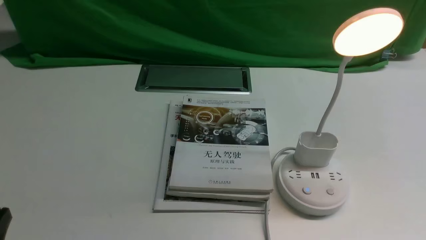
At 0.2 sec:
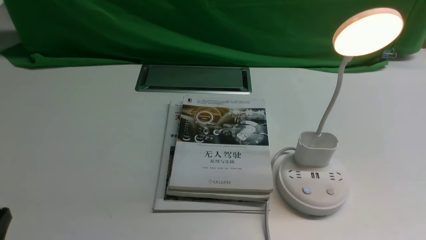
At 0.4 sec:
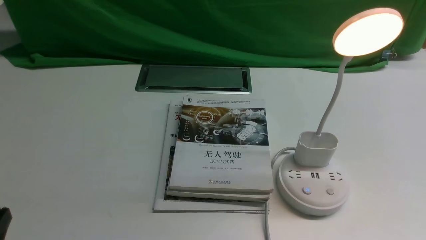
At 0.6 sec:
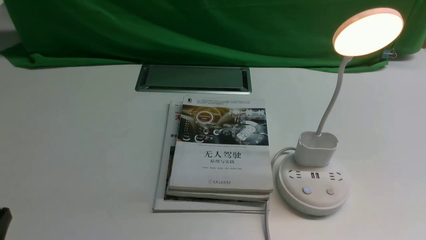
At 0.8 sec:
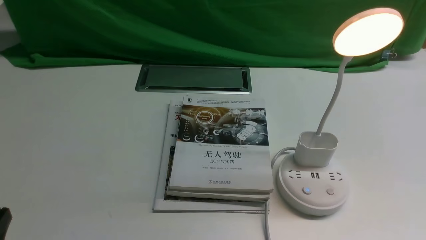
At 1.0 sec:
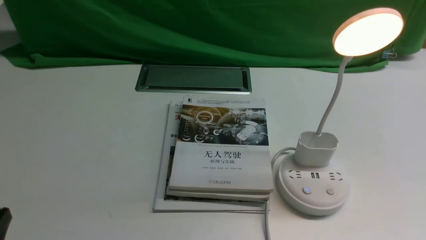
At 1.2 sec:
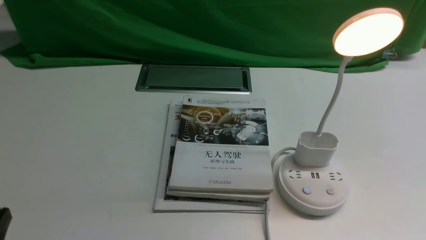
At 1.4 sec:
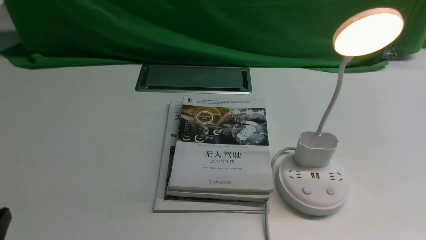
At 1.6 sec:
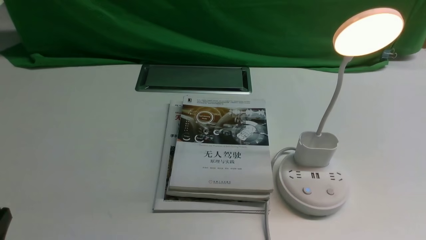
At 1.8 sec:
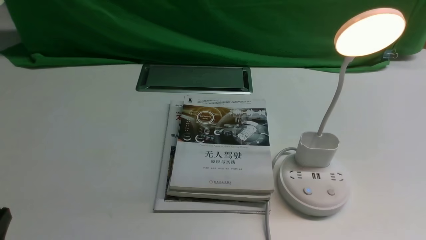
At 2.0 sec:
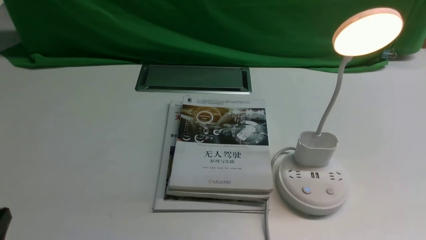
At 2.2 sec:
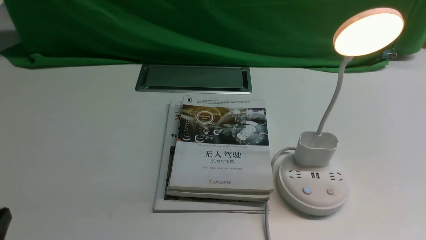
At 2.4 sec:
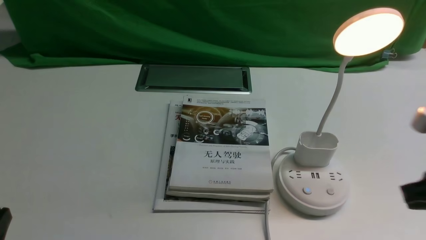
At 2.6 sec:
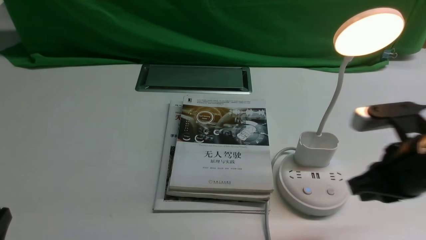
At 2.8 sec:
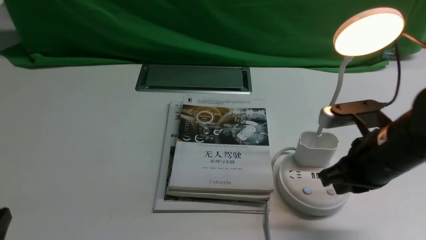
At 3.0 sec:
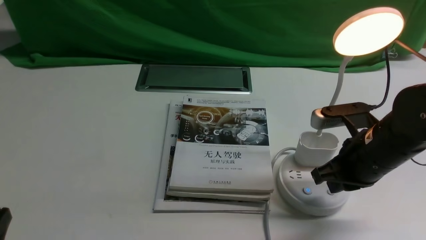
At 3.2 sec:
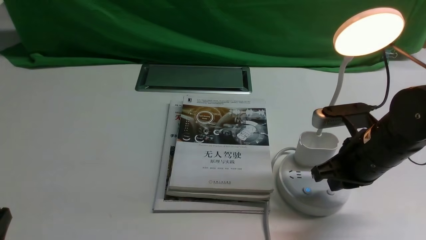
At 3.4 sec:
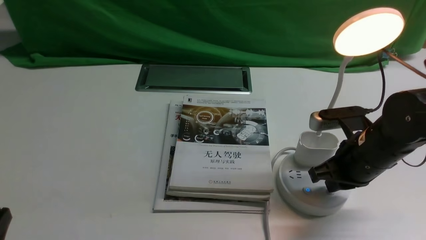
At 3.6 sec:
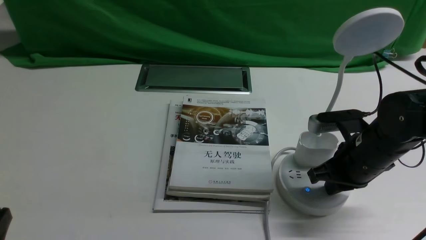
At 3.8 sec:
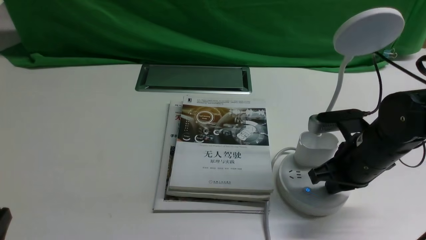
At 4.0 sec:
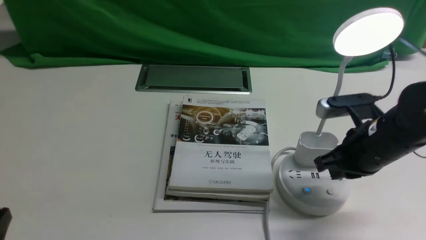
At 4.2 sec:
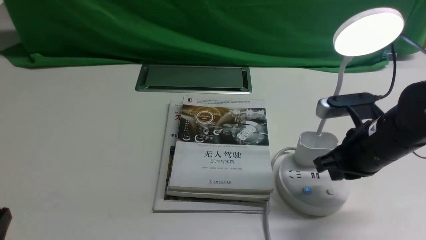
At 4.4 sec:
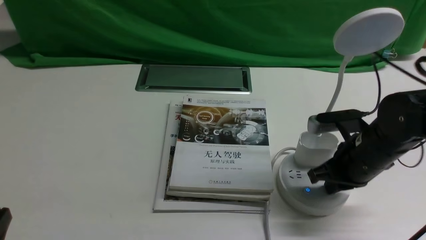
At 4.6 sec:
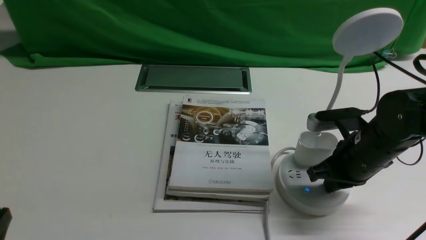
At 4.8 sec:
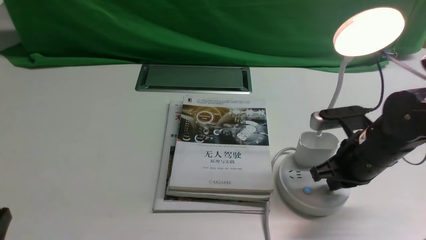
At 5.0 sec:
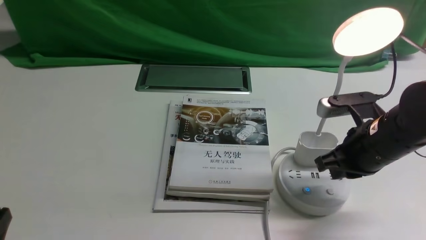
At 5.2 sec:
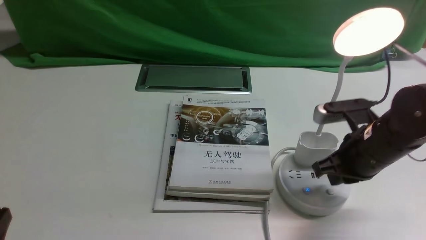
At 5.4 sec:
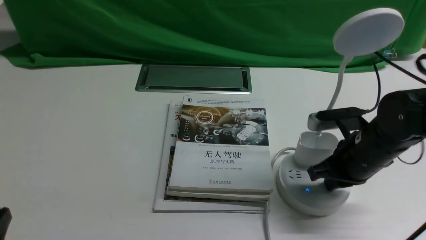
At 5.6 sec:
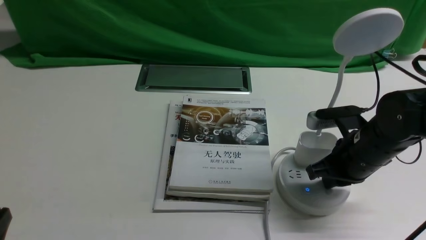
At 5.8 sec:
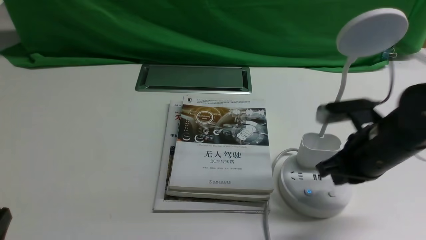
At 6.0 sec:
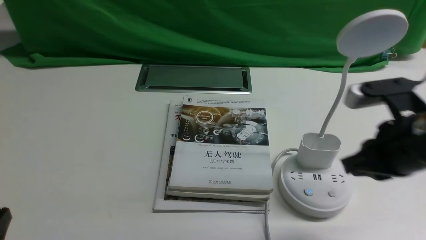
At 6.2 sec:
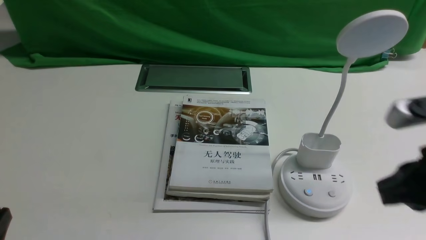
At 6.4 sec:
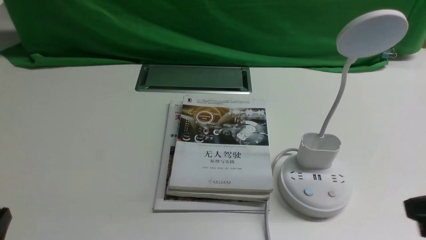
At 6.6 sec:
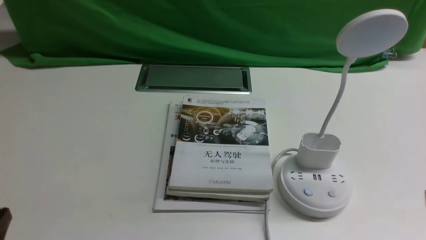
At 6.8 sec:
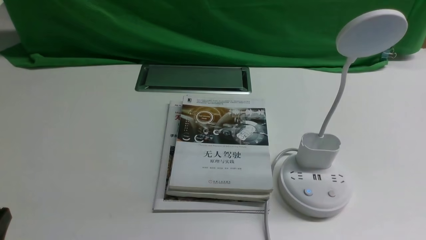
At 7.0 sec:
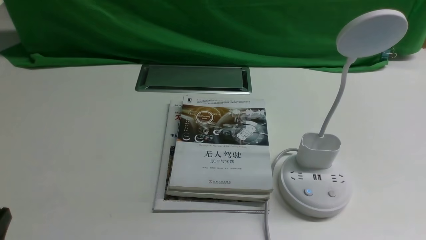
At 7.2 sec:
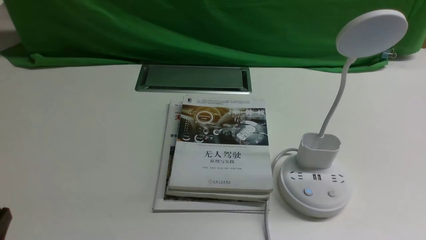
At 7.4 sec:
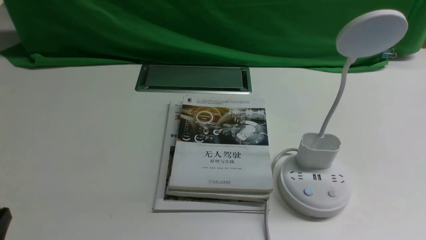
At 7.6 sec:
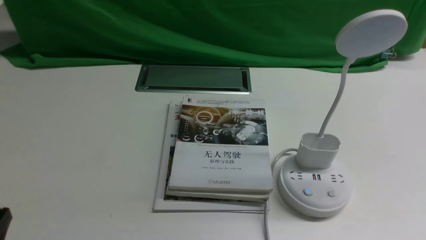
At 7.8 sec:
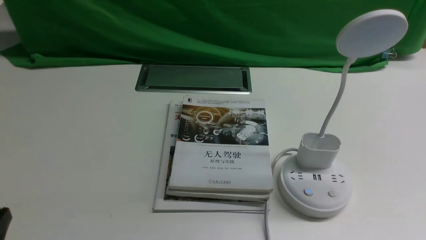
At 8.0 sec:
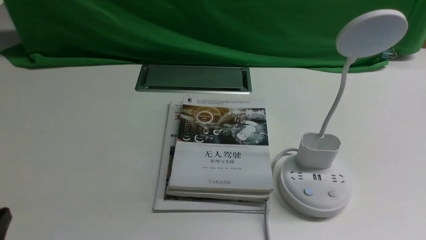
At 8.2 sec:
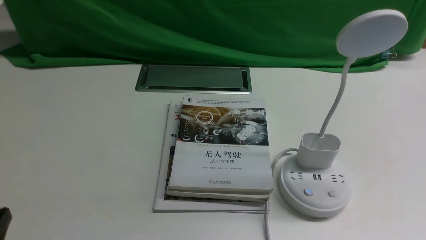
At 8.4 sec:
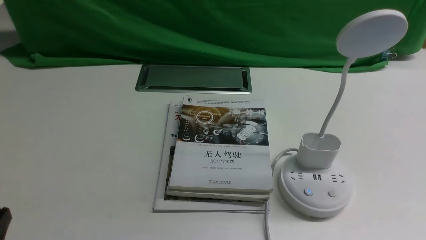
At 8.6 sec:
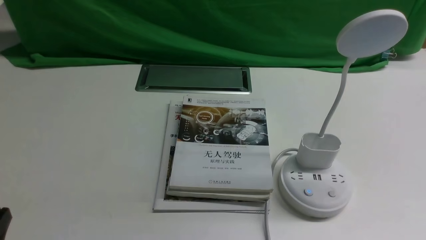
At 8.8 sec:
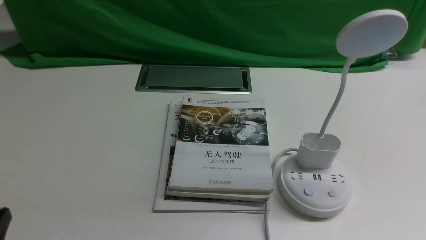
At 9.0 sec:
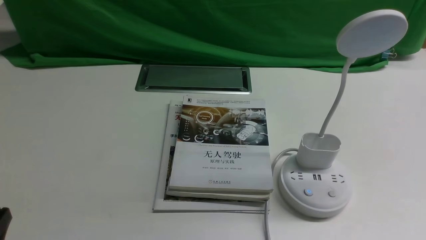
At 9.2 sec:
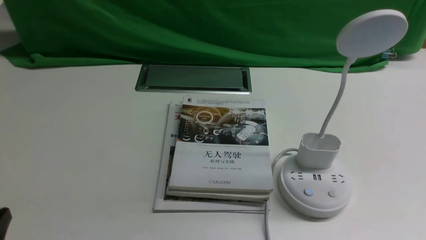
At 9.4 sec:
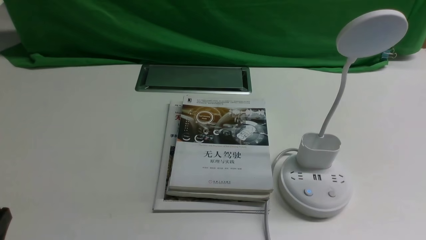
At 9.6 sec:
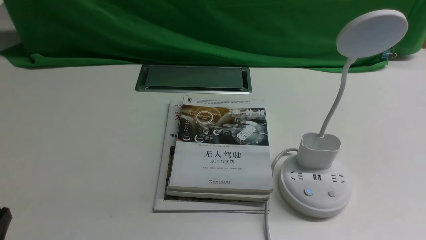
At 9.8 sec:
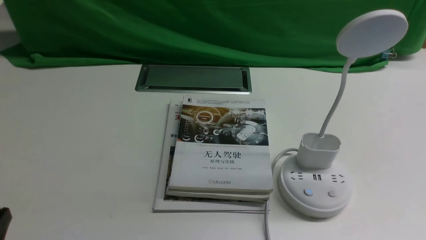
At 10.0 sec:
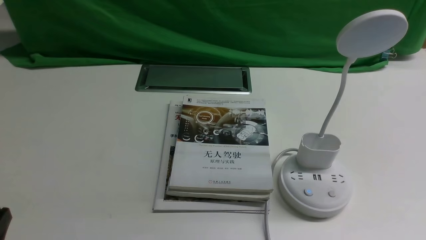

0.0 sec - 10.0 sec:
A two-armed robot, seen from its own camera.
Task of the whole recording: turn off the desk lamp on the white desktop by hand.
Step, 0.0 sec - 5.6 sec: use the right arm to press the button switch on the lamp holder.
1.4 sec - 2.8 sec: The right gripper shifts some 20 cm forward and to the left, and closes its fingers.
2.8 sec - 4.2 sec: The right gripper moves approximately 5 cm.
4.2 sec - 5.8 sec: The grippers make only small movements.
5.8 sec - 7.2 sec: The right gripper is displaced backward and to the right by some 25 cm.
8.6 sec - 10.0 sec: The two grippers keep their place.

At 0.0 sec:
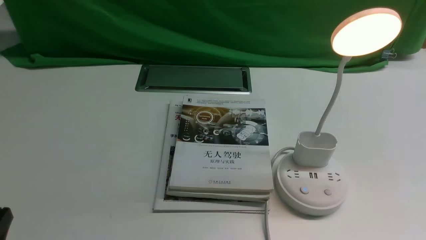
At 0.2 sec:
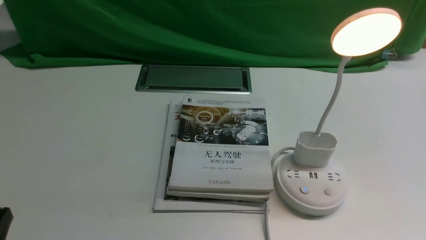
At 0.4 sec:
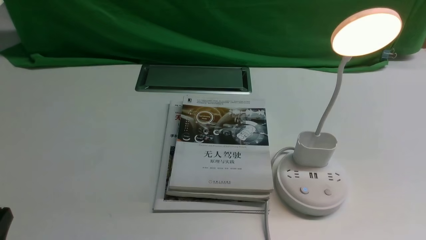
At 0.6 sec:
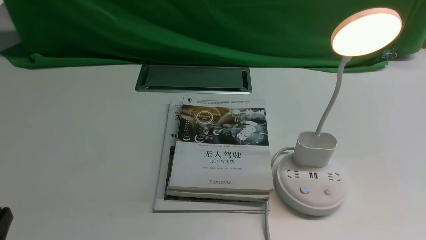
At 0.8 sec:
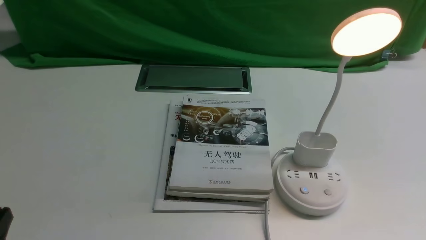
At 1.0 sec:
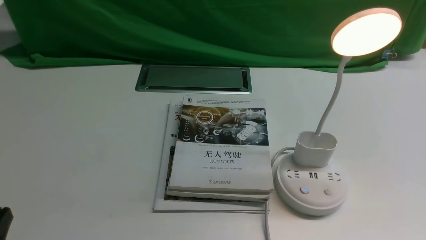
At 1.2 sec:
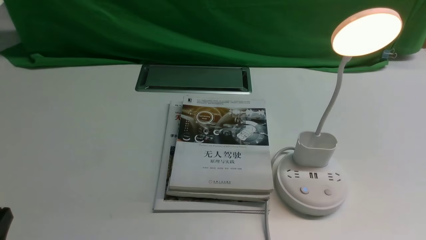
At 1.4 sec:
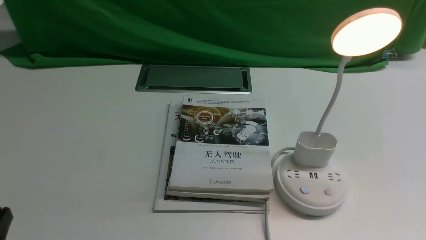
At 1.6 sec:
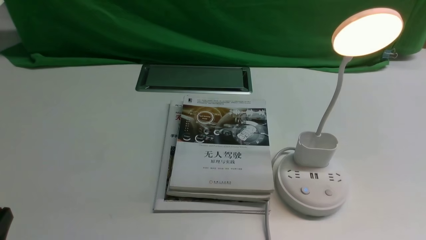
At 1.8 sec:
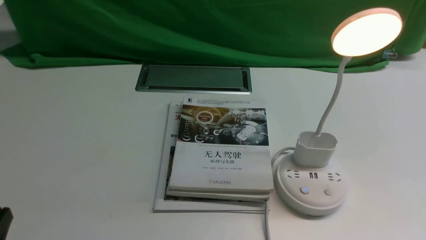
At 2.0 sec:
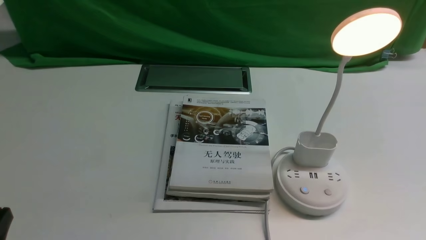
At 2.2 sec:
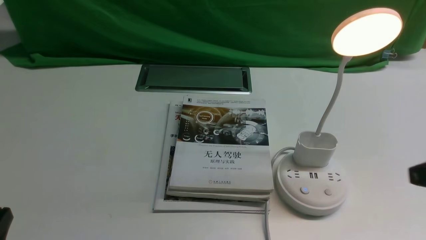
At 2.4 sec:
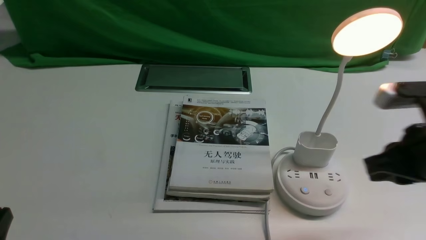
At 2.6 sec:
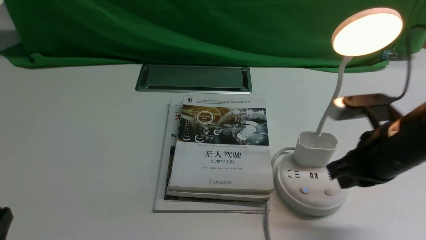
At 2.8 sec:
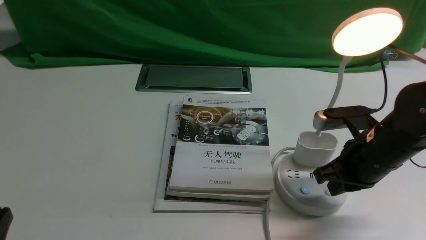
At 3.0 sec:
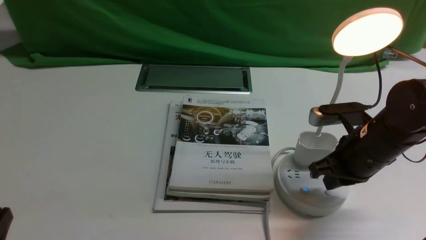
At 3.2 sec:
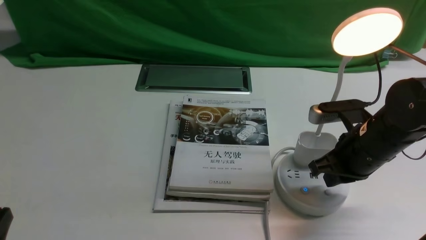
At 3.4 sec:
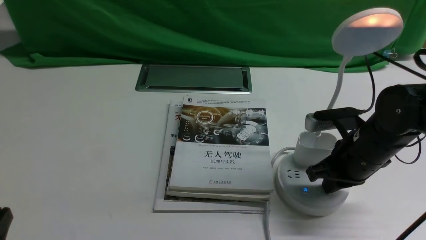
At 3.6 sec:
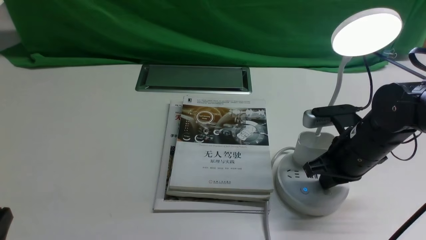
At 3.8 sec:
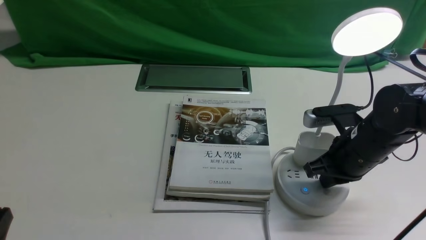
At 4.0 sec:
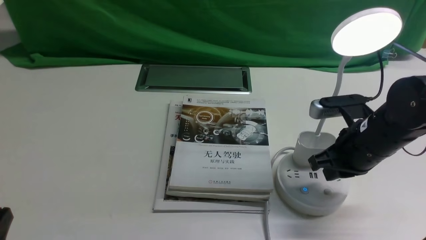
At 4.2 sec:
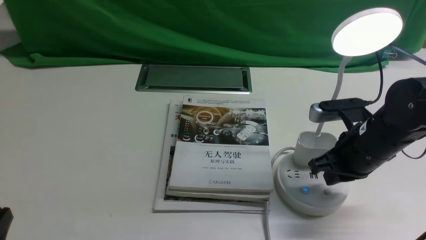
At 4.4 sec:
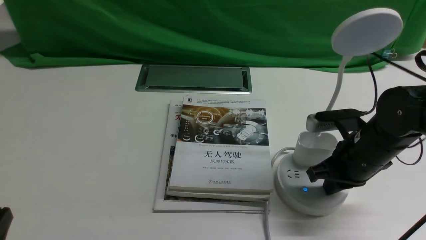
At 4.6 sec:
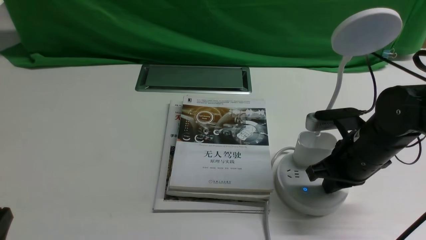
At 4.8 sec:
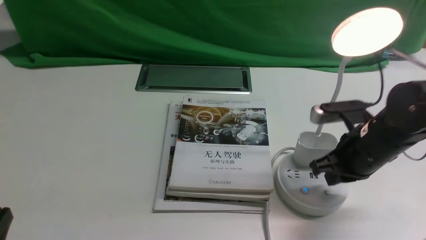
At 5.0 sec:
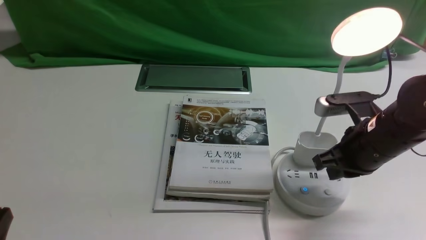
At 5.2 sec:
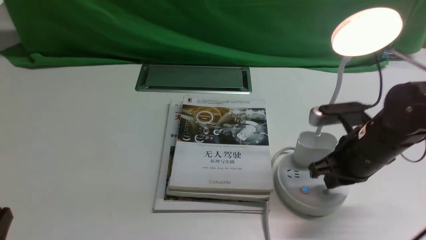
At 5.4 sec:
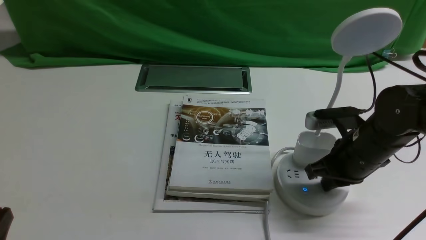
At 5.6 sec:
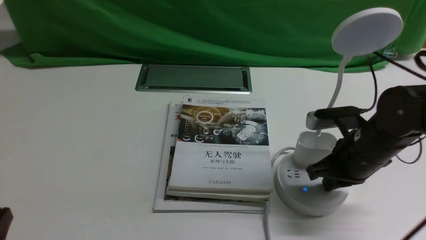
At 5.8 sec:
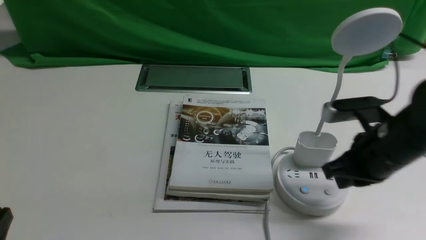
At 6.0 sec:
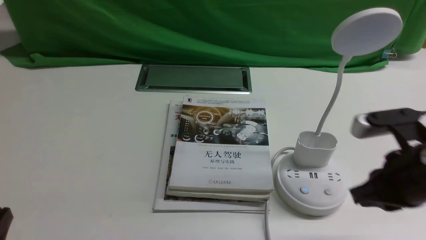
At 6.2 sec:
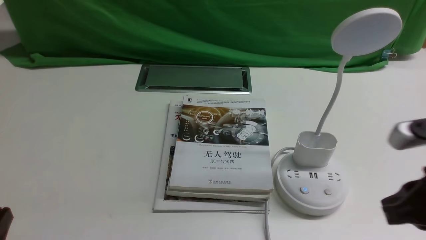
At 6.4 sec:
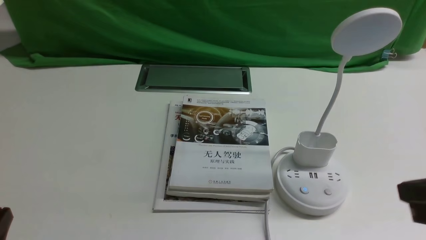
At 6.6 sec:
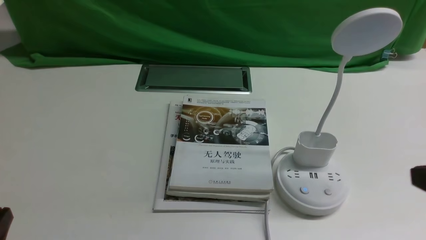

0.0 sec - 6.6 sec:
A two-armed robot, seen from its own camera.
Task of the whole recording: turn off the desk lamp on the white desktop by hand.
Step, 0.0 sec - 5.6 sec: use the right arm to press the button switch on the lamp holder.
1.6 sec - 3.2 sec: The right gripper shifts roughly 25 cm forward and to the left, and closes its fingers.
3.2 sec - 5.0 sec: The grippers stay close to where they were, moving slightly.
5.0 sec - 6.6 sec: The right gripper is displaced backward and upward by approximately 20 cm.
